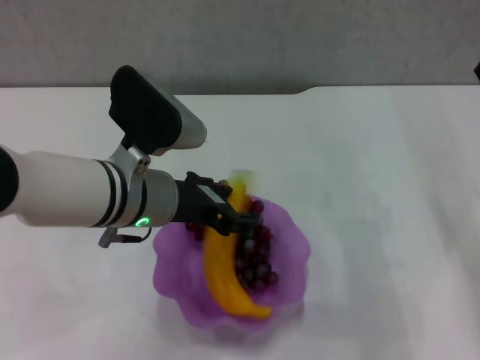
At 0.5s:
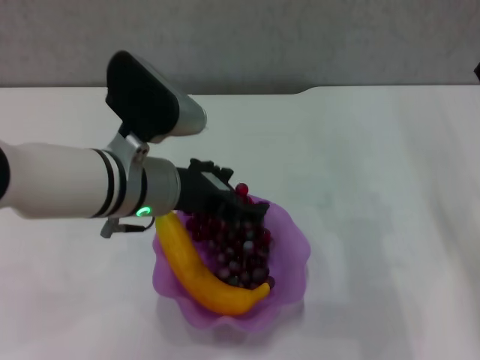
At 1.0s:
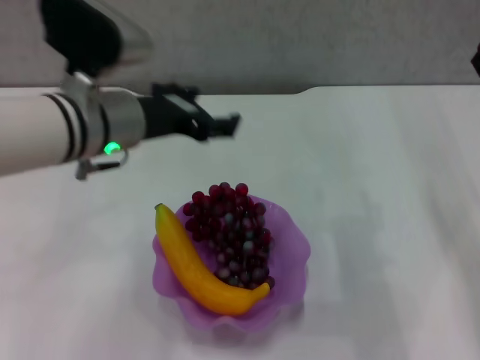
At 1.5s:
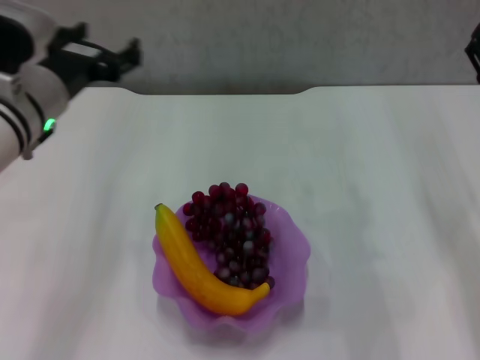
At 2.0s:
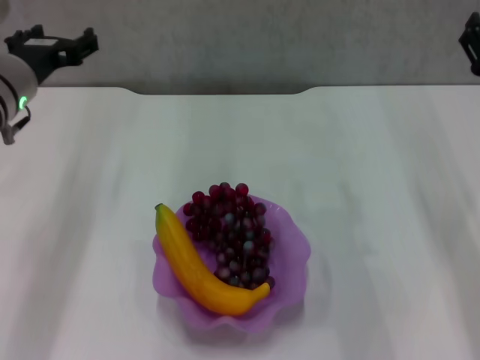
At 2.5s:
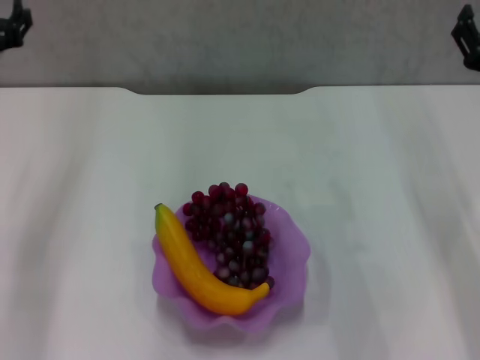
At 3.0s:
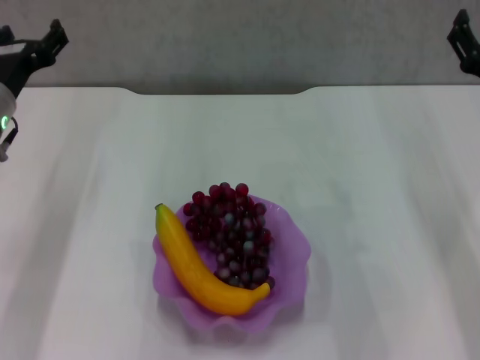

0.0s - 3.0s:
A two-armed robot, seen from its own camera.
0.0s - 1.5s: The left gripper is displaced to the left by some 10 cm, and opens its fingers.
1.5s - 3.0s: The left gripper shifts about 5 cm to the left.

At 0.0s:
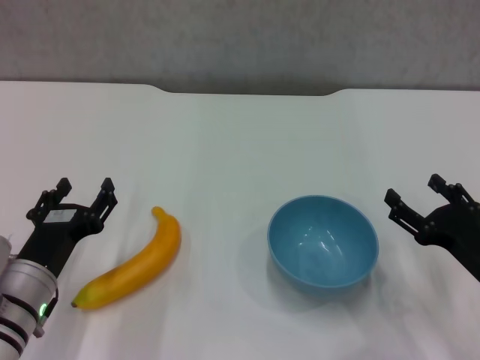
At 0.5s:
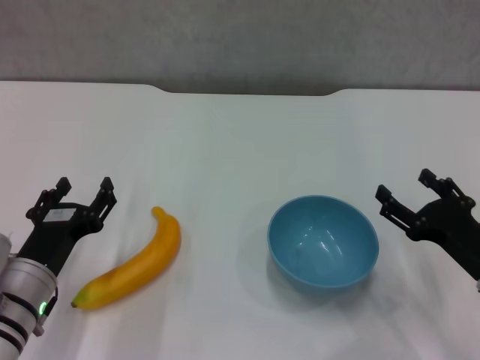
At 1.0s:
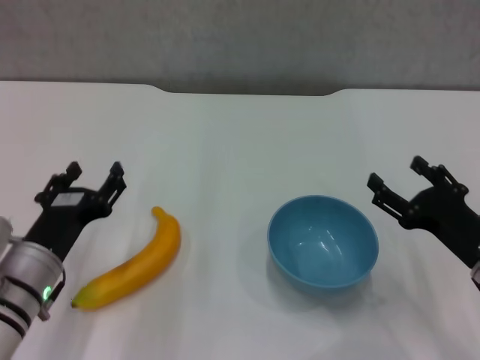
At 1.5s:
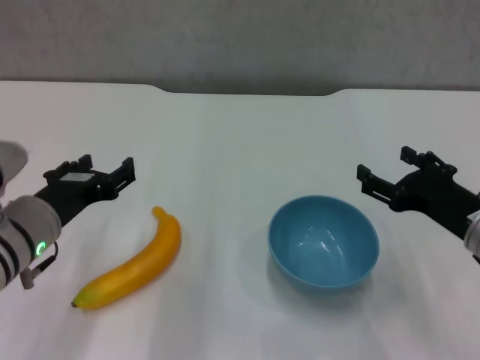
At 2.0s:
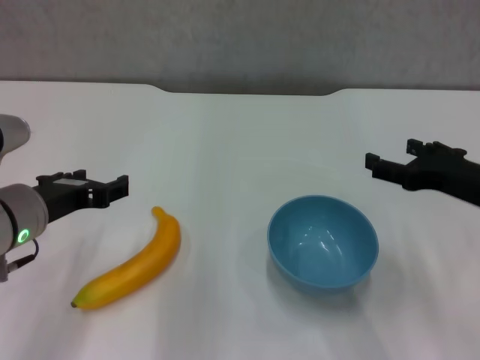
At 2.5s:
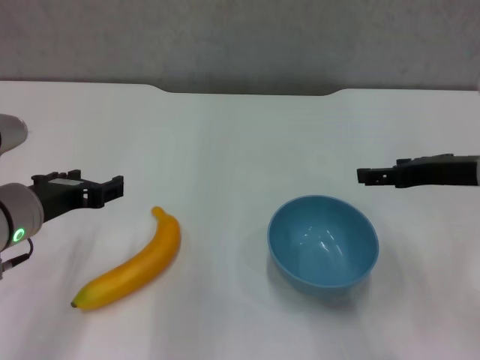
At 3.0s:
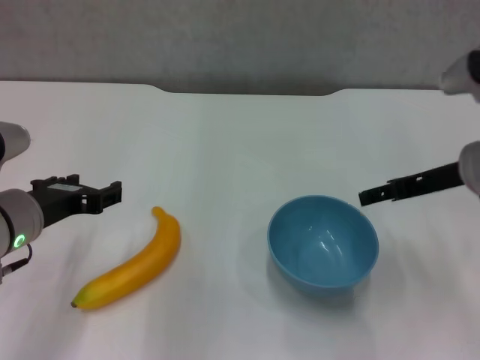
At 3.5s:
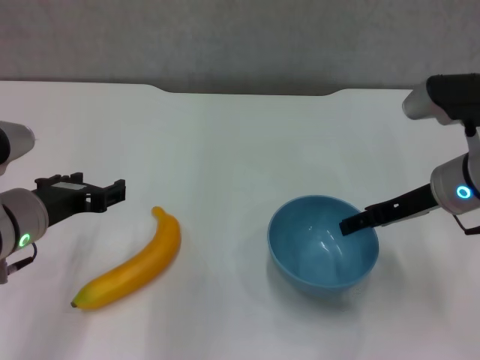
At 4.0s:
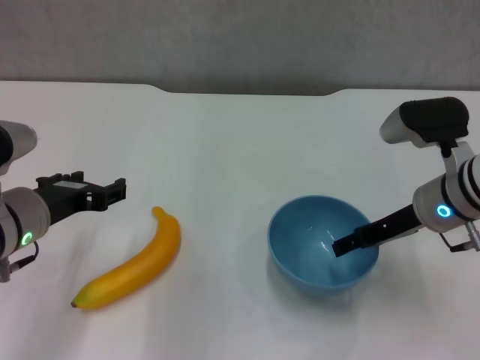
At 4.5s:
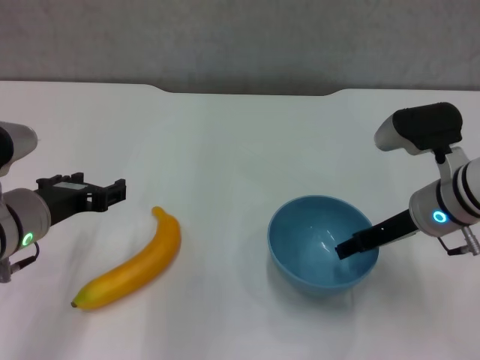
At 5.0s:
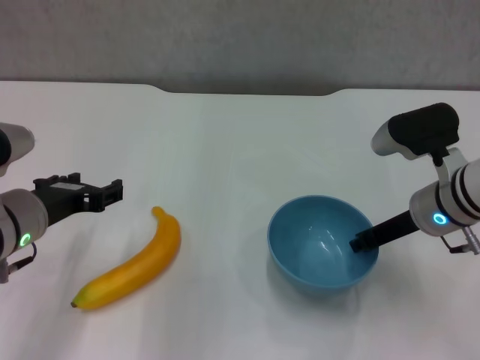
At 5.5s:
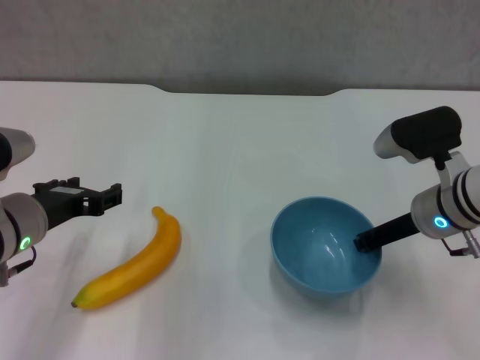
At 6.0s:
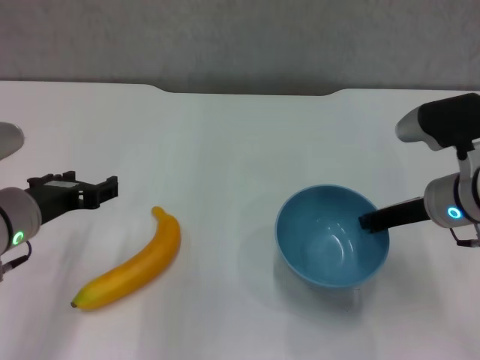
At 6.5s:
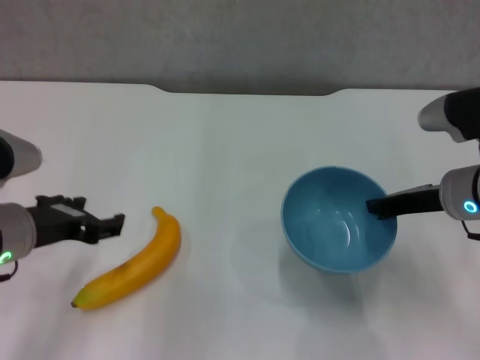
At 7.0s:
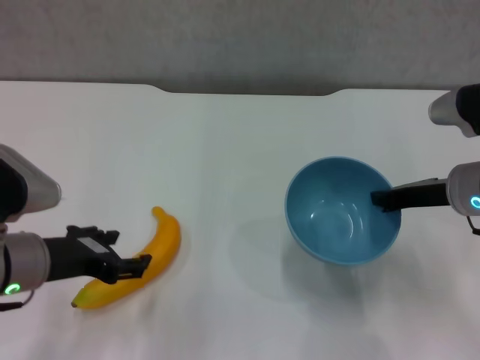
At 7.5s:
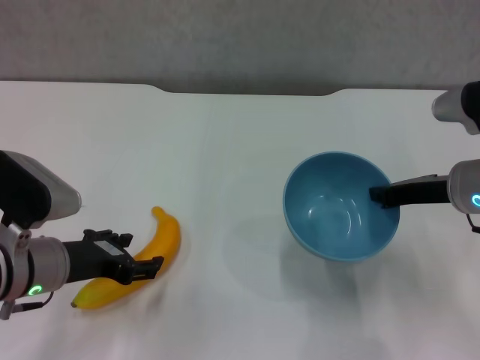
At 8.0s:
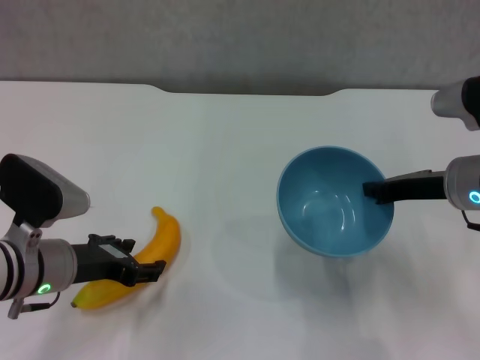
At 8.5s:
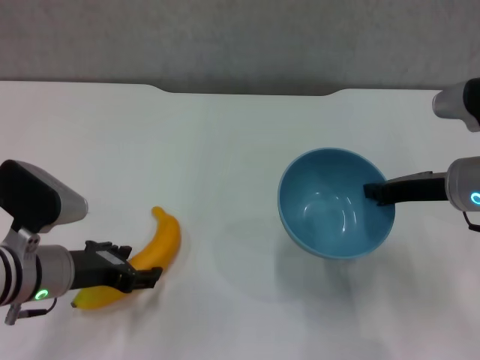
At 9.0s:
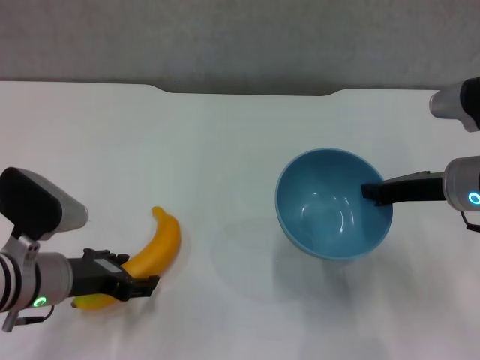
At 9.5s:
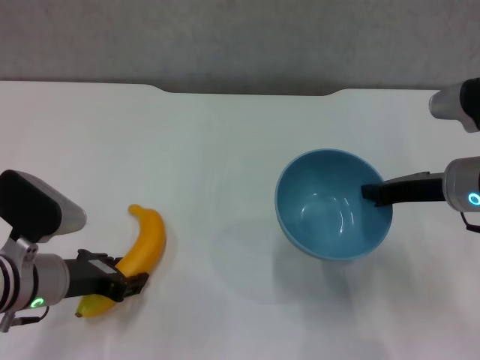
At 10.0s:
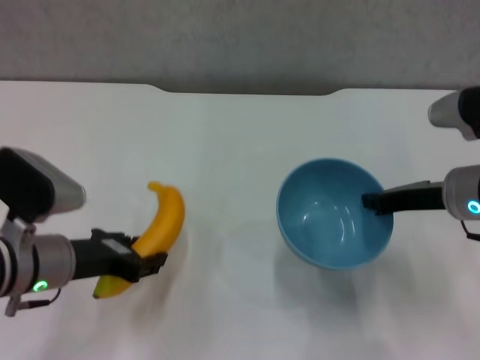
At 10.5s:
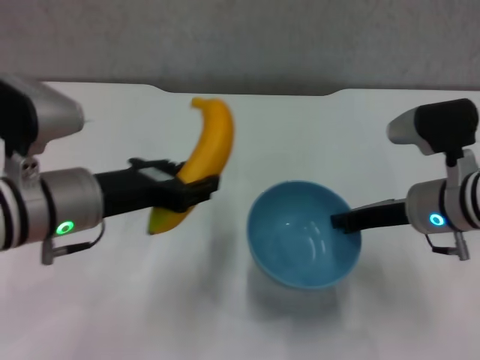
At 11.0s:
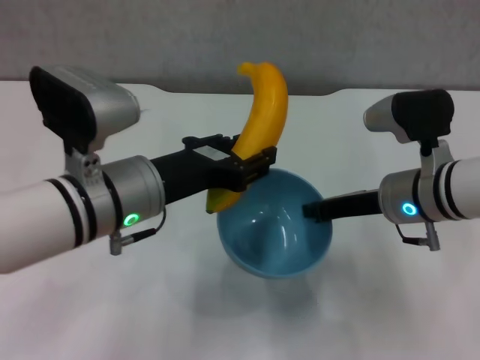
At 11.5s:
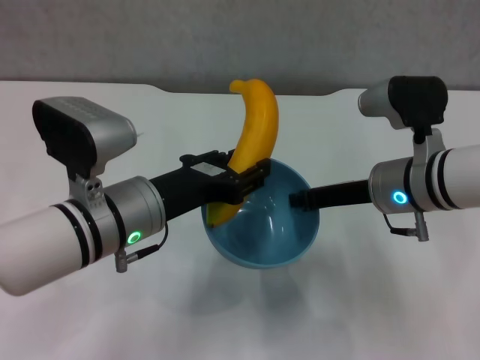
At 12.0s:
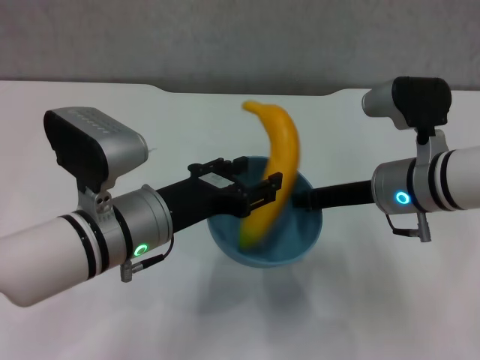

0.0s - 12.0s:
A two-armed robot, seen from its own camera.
Step, 0.0s - 5.5s: Grasp the blue bowl with right gripper.
Step, 6.0s - 6.5s: Lift the blue bowl with right gripper.
Step, 7.0s - 9.0s: Grasp the banana with left gripper.
0.0s - 2.0s: The left gripper shifts about 10 cm upward, while the right gripper is displaced upward and forward by some 10 cm.
2.0s - 4.0s: The right gripper is displaced forward and to the left by some 10 cm.
4.0s - 6.0s: The right gripper closes its fingers.
6.0s - 8.0s: The left gripper heads downward, covering about 5 cm.
8.0s - 10.0s: The left gripper closes up.
10.0s - 12.0s: The right gripper is displaced to the left by about 5 cm; the left gripper moves to the right, roughly 10 cm.

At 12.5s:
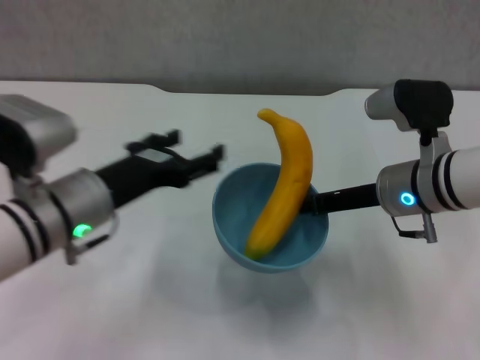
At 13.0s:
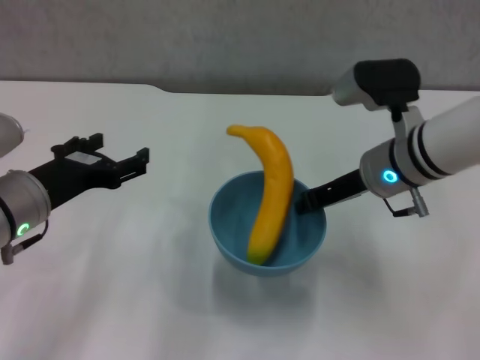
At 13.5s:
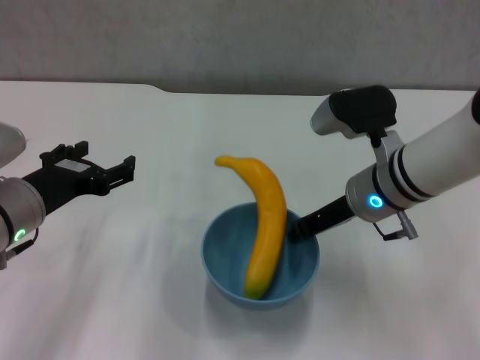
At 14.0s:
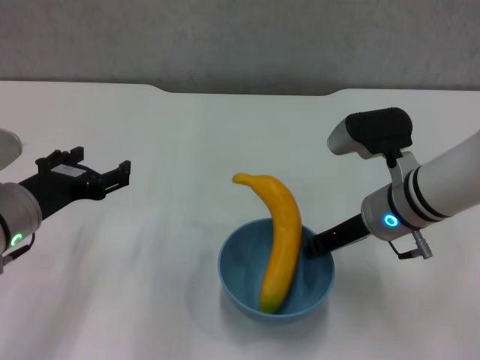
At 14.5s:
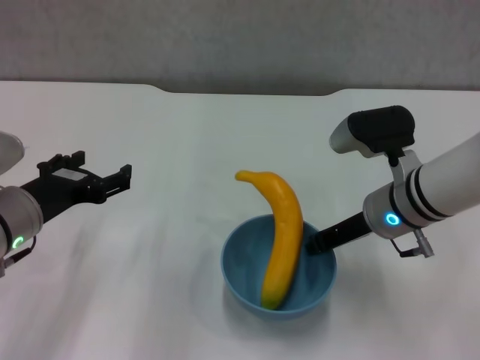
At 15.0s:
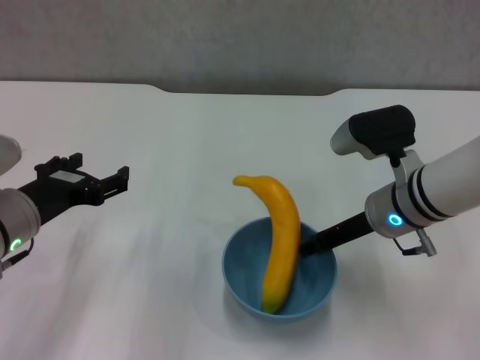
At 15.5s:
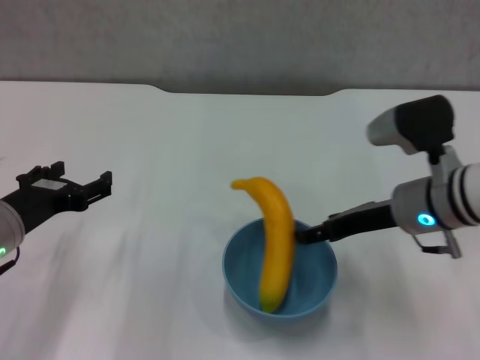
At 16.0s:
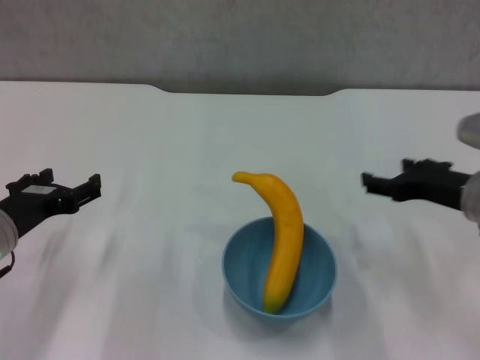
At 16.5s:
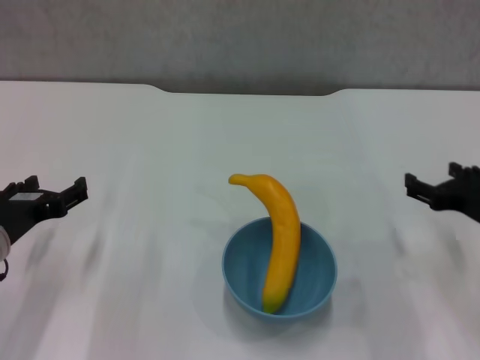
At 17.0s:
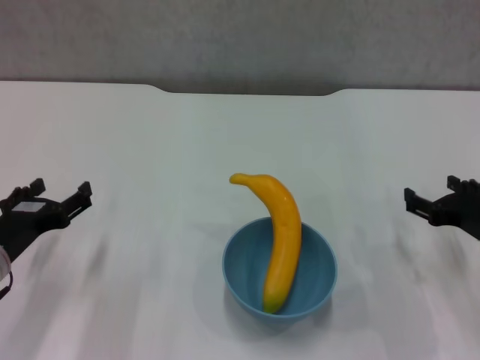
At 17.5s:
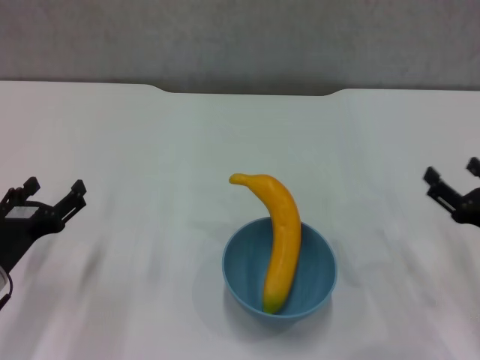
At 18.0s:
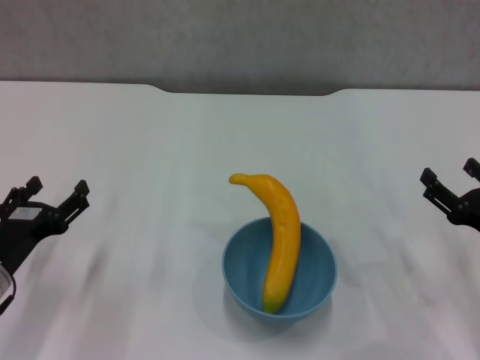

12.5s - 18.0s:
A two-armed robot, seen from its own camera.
Step, 12.5s - 15.5s: Place the bowl on the table with right gripper.
12.5s - 14.5s: The left gripper heads to the left, covering approximately 5 cm.
14.5s - 16.0s: The right gripper moves to the right, roughly 10 cm, and opens.
16.0s - 18.0s: The right gripper shifts some 10 cm downward, backward and to the right. Meanwhile the left gripper moves downward, roughly 5 cm.

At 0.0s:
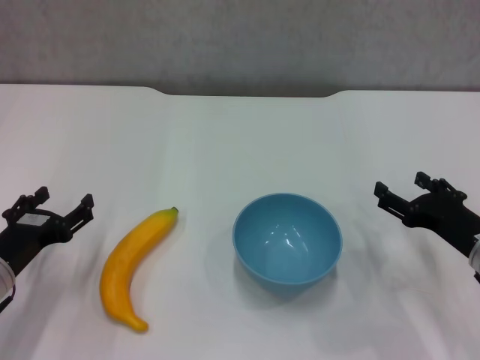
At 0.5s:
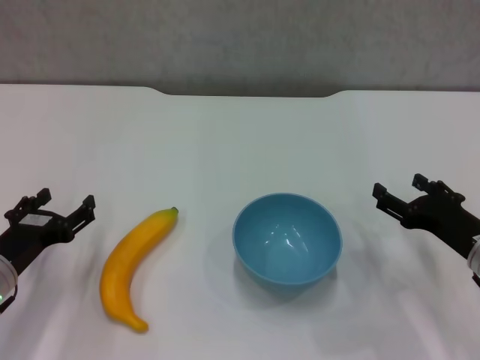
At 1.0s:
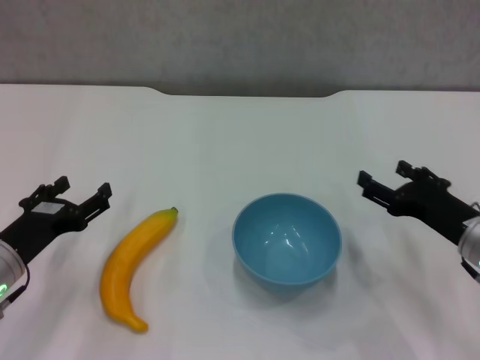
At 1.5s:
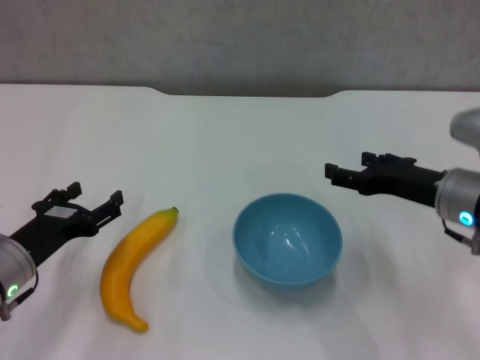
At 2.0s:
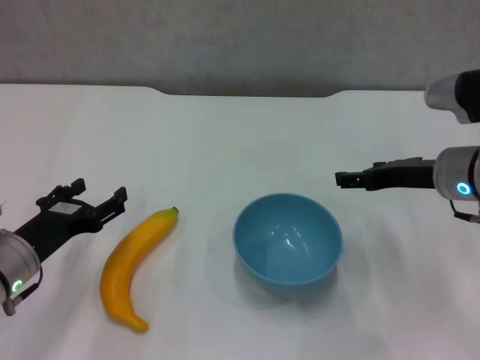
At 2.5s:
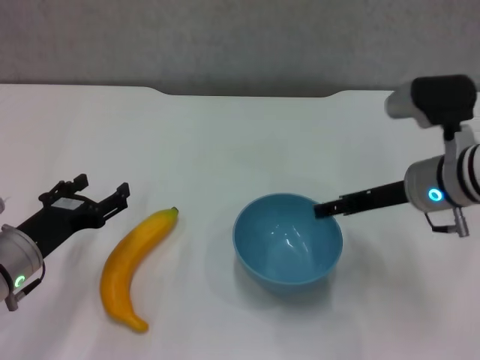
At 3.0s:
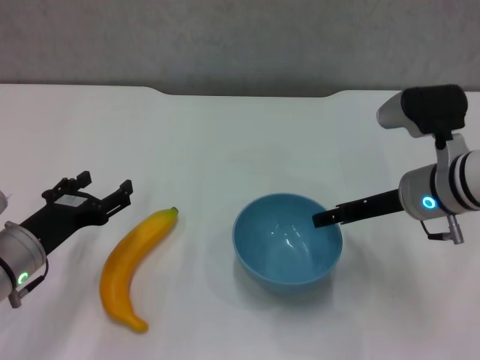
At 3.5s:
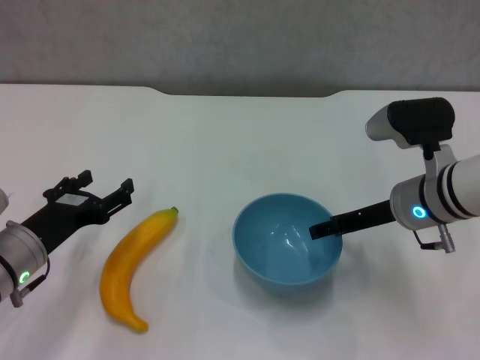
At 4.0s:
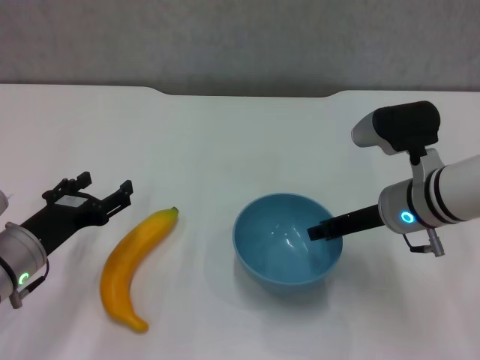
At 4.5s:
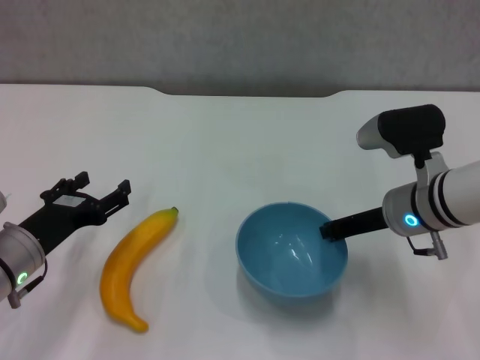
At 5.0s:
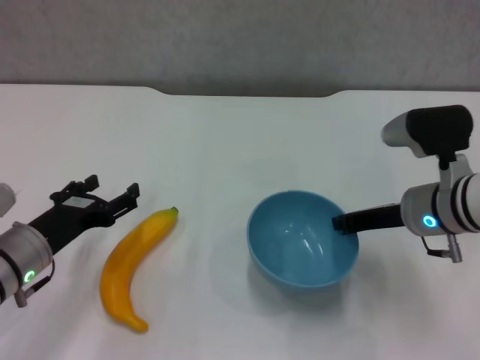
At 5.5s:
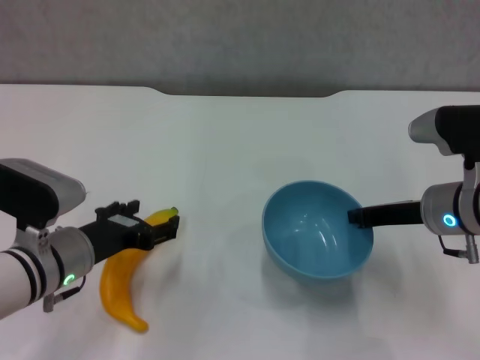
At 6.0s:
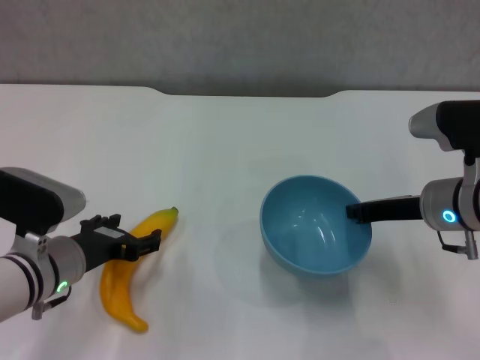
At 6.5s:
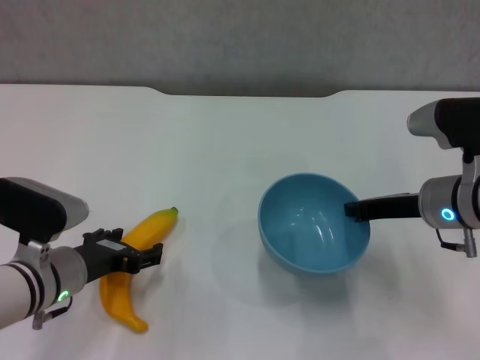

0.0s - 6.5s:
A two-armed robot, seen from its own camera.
Step, 0.0s - 4.0s: Grasp the blue bowl with right gripper.
Step, 4.5s - 5.5s: Lift the blue bowl with right gripper.
0.0s - 2.0s: The right gripper shifts some 10 cm upward and forward.
2.0s - 4.5s: The right gripper shifts by approximately 5 cm, and closes up.
